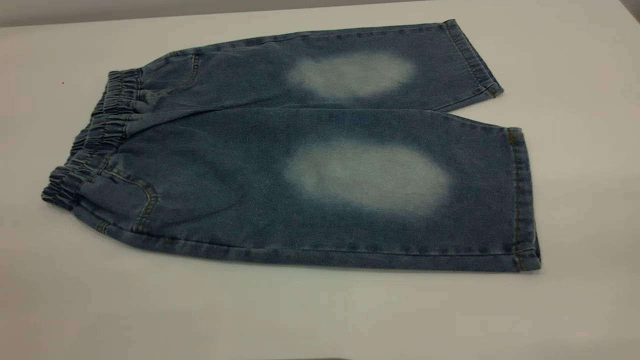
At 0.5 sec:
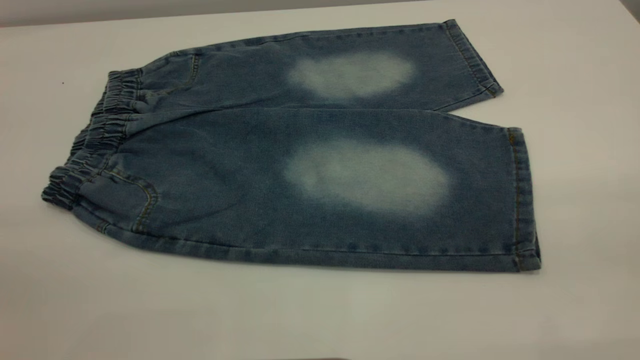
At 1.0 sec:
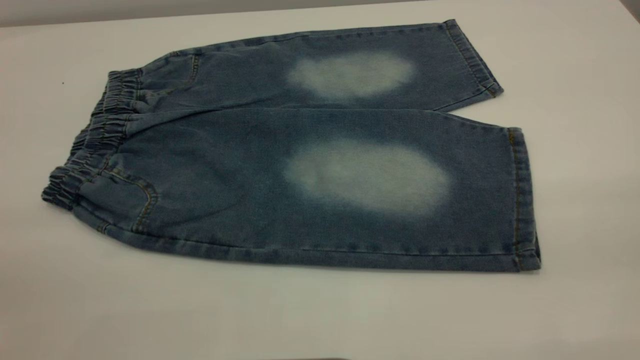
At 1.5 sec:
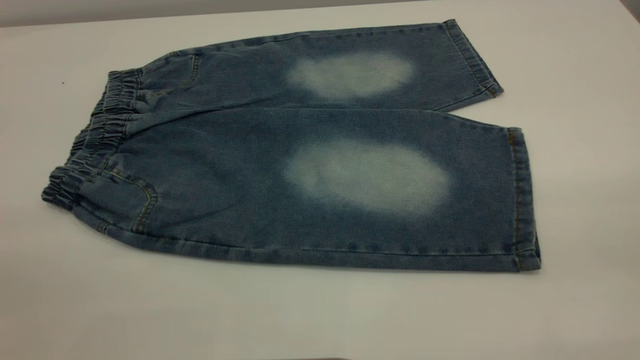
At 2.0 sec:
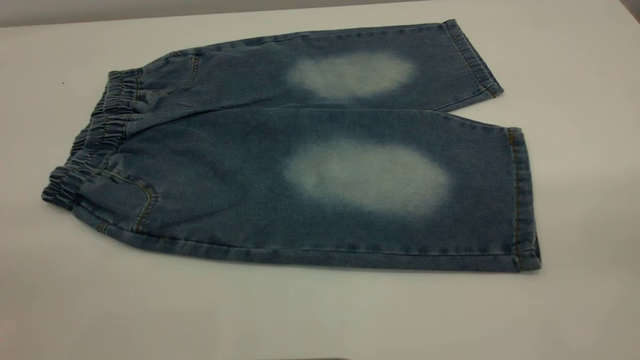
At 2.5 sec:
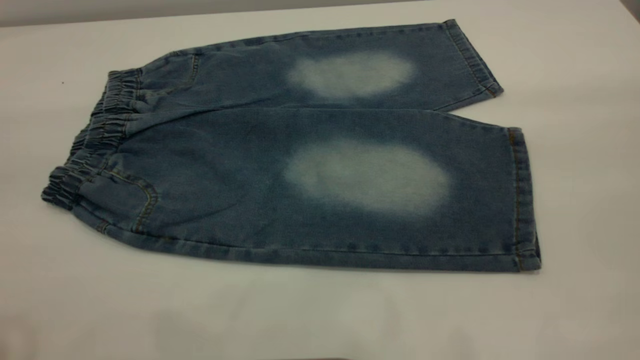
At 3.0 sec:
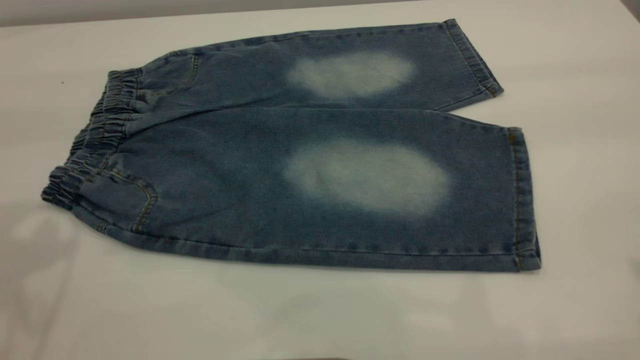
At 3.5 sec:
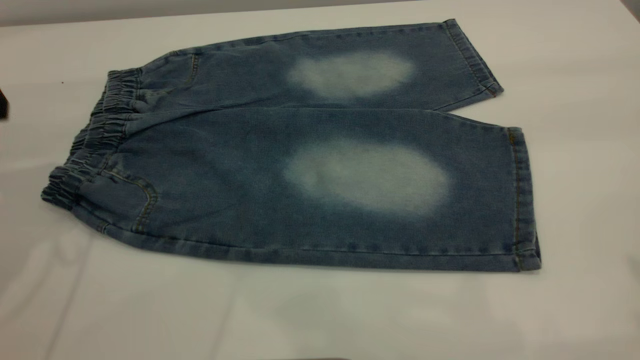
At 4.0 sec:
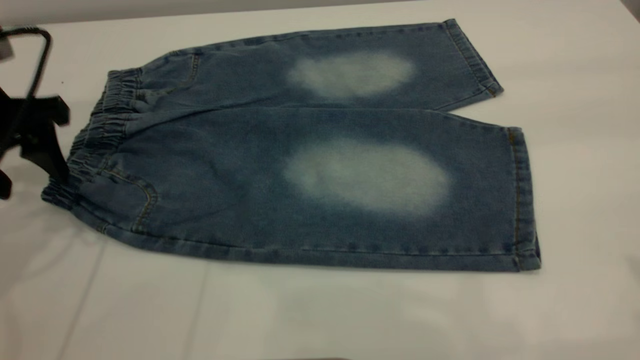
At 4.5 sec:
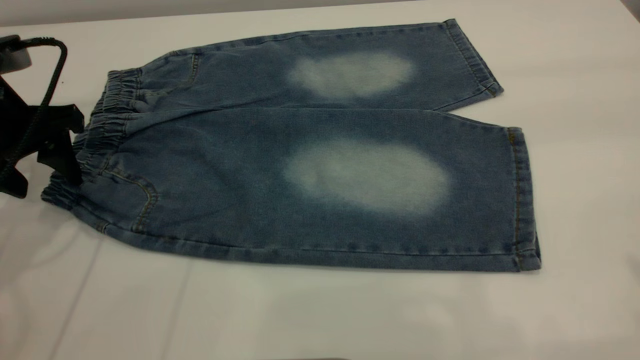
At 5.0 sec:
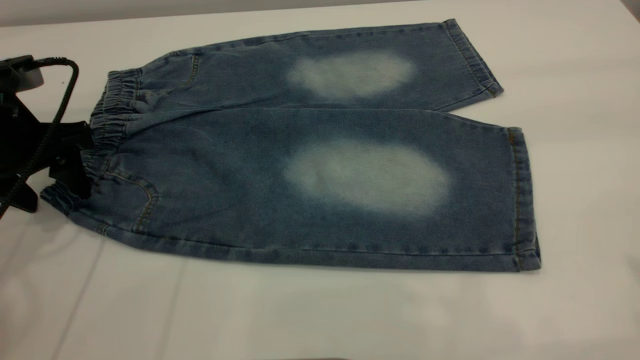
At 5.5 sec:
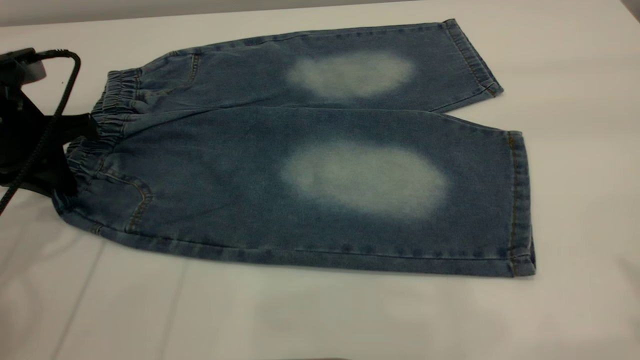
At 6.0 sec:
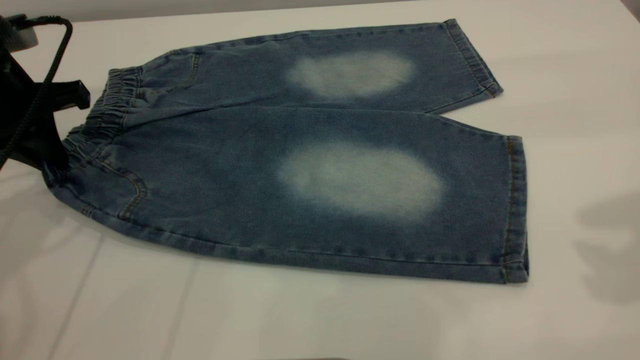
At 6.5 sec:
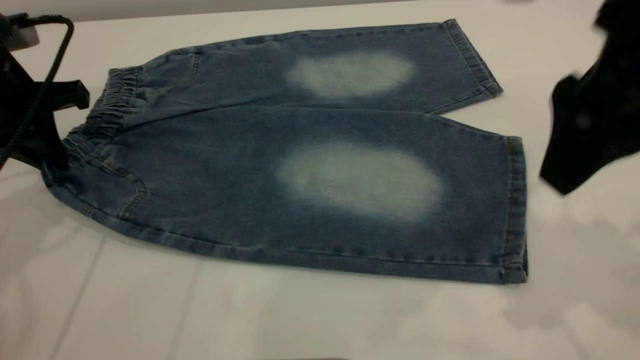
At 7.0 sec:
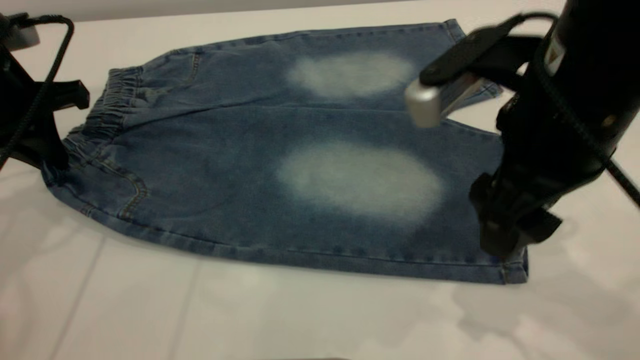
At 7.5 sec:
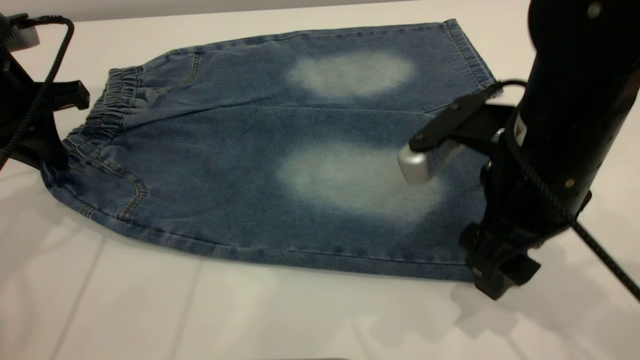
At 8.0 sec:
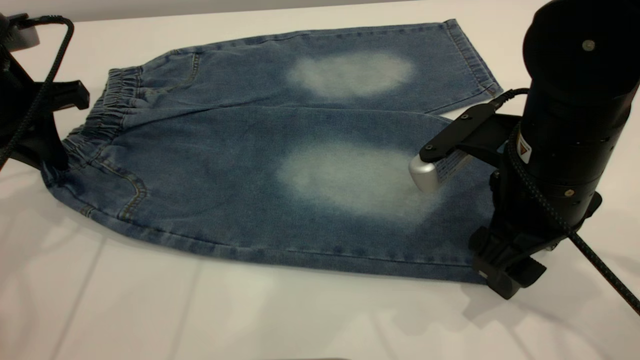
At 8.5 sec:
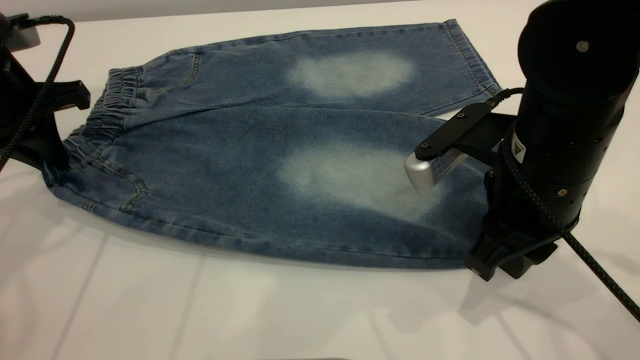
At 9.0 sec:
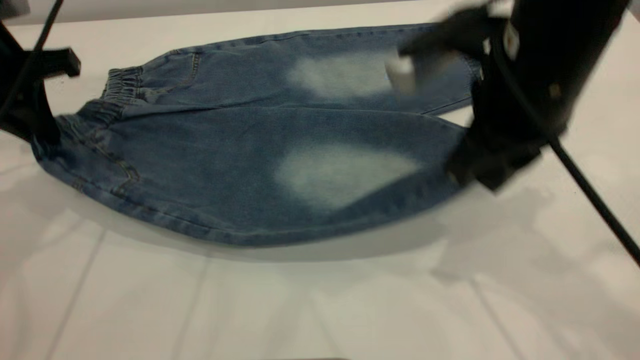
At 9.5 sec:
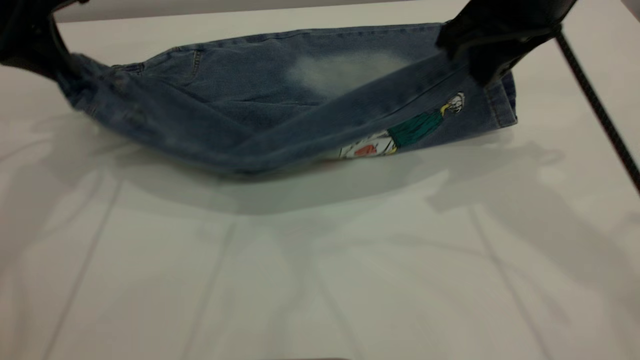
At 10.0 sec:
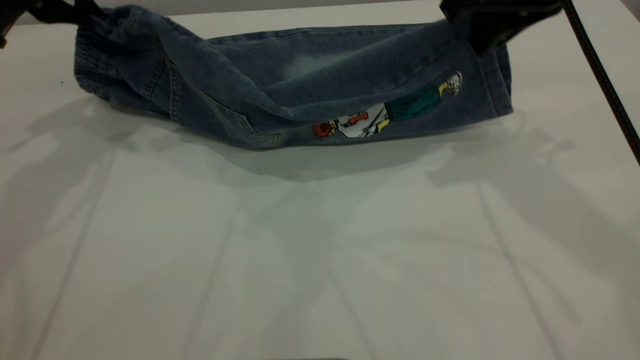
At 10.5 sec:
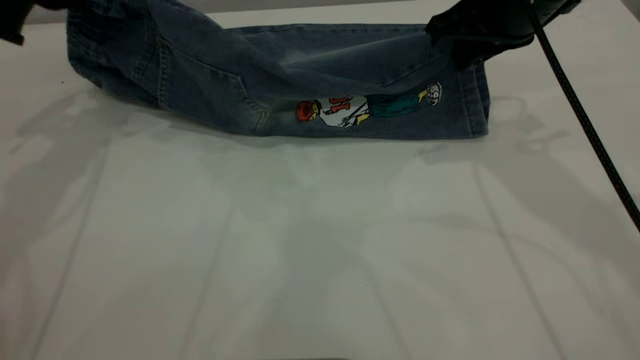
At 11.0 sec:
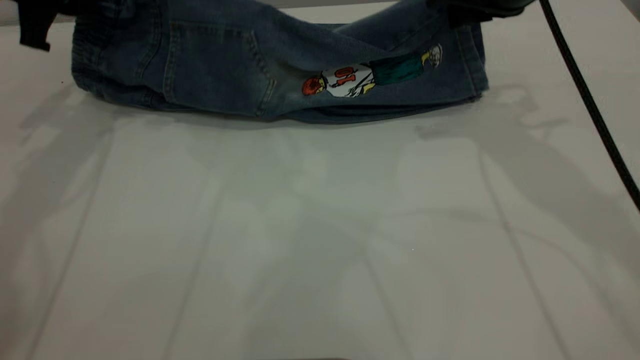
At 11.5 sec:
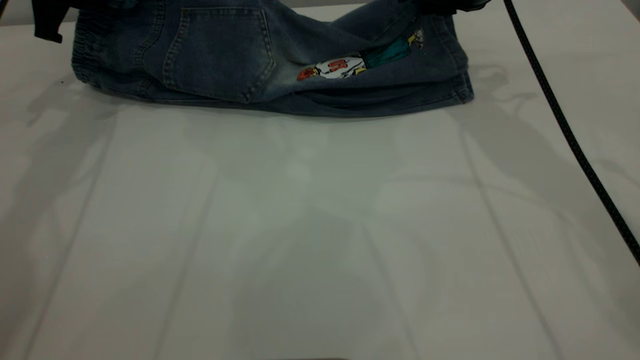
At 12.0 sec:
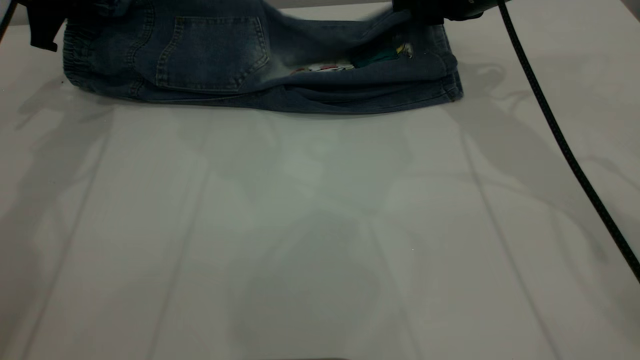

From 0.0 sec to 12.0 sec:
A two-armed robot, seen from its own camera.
From 2.0 sec to 4.0 sec: The left gripper goes some 35 cm forward and downward.
From 4.0 sec to 6.0 sec: The right gripper travels forward and downward by roughly 10 cm. Meanwhile the left gripper closes its fingers.
From 6.0 sec to 8.0 sec: The right gripper is displaced downward and to the left by roughly 25 cm.
From 8.0 sec to 10.0 sec: The right gripper is displaced upward and forward by approximately 15 cm, and closes its fingers. Meanwhile the left gripper travels upward and forward by approximately 10 cm.
From 10.0 sec to 12.0 sec: The grippers both shift forward and downward by roughly 10 cm. The right gripper opens.

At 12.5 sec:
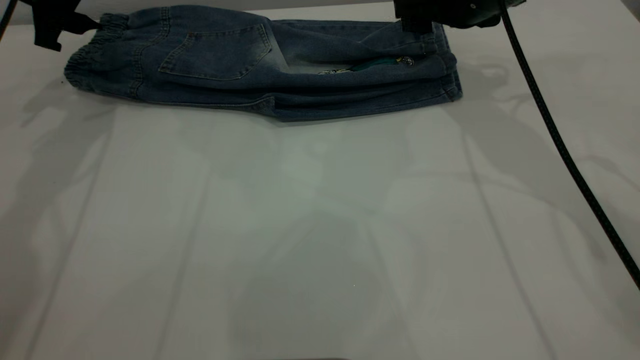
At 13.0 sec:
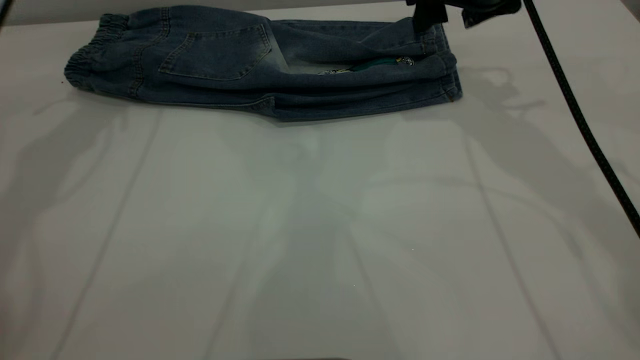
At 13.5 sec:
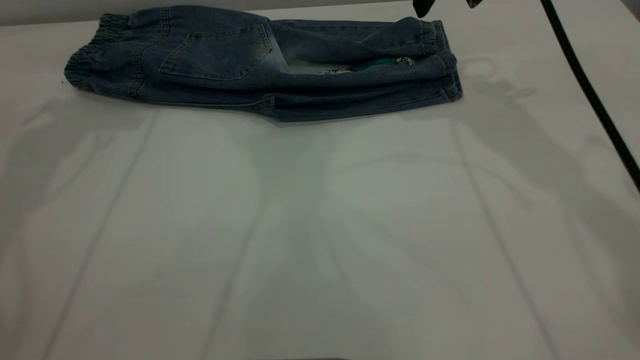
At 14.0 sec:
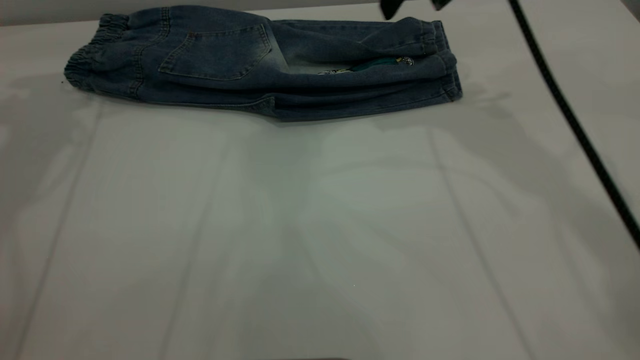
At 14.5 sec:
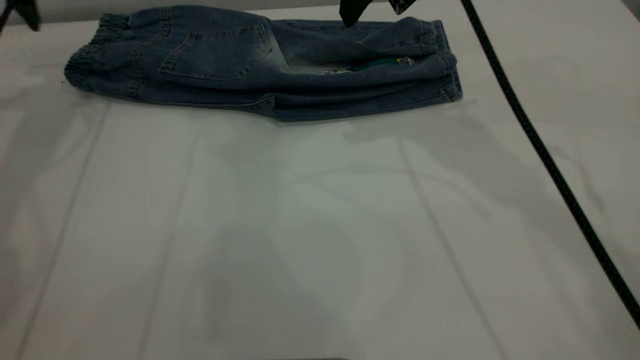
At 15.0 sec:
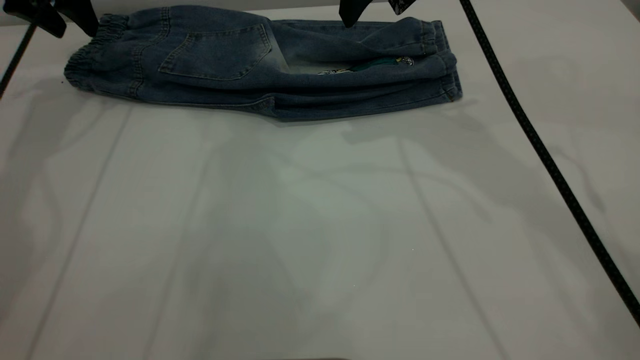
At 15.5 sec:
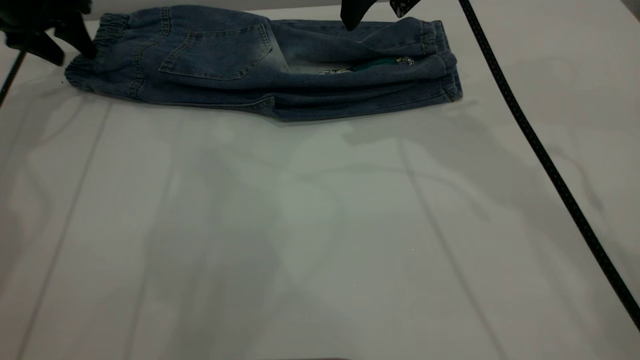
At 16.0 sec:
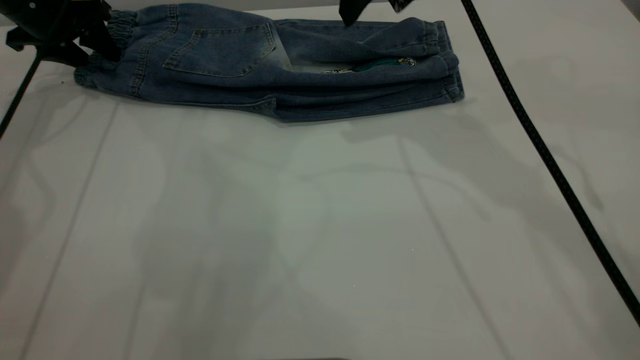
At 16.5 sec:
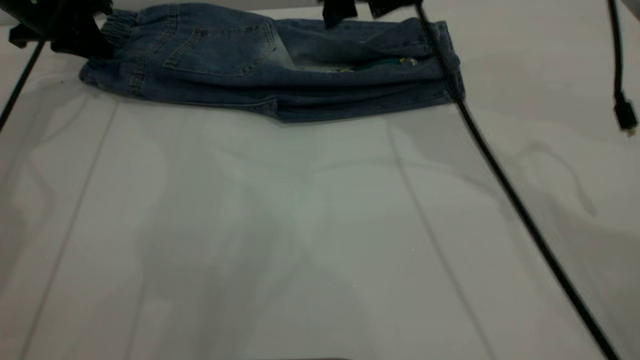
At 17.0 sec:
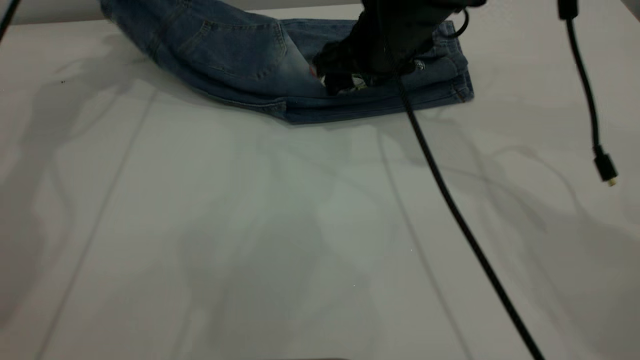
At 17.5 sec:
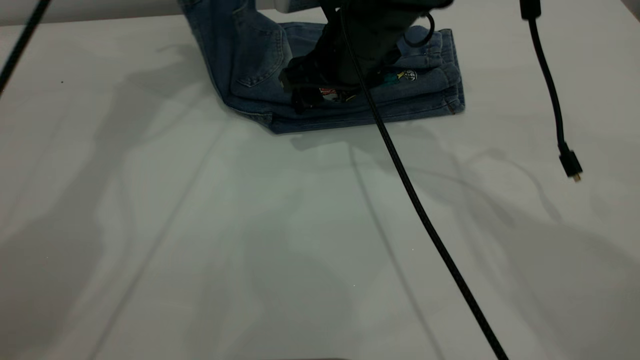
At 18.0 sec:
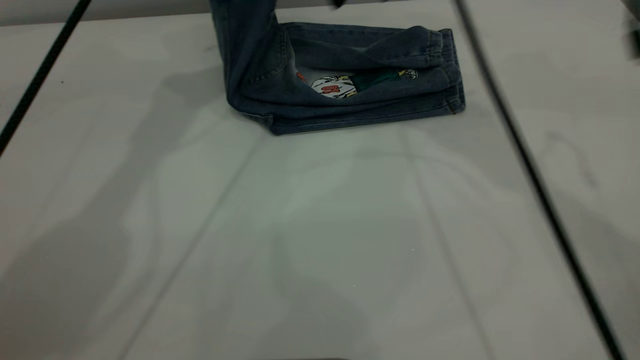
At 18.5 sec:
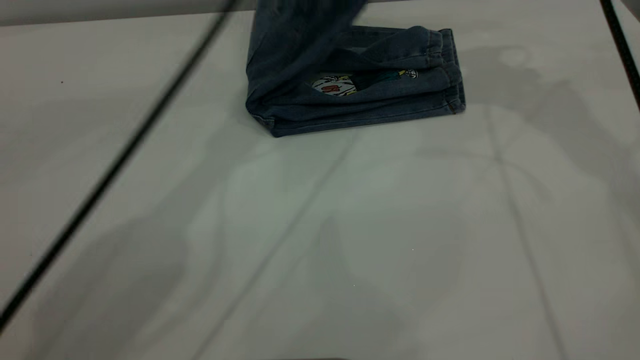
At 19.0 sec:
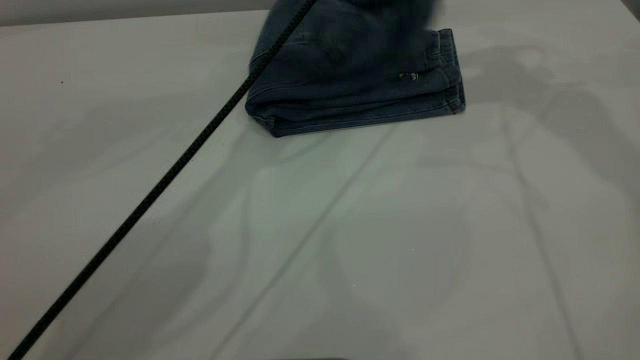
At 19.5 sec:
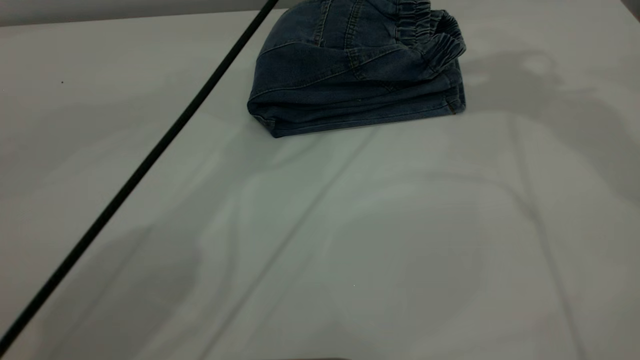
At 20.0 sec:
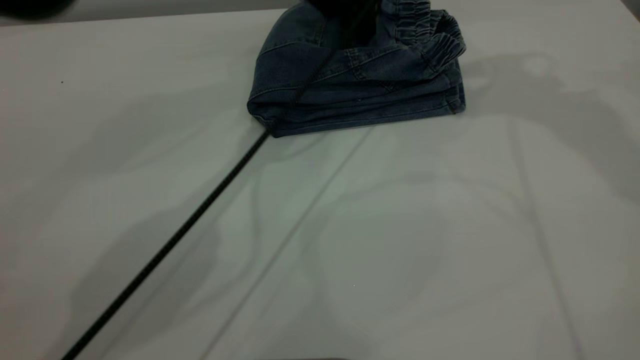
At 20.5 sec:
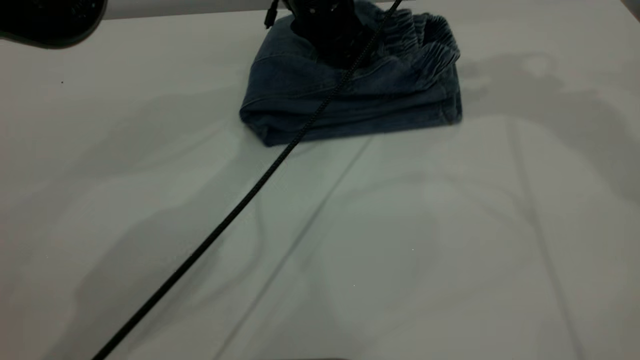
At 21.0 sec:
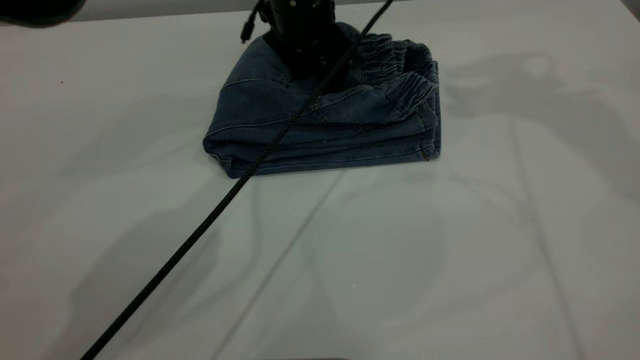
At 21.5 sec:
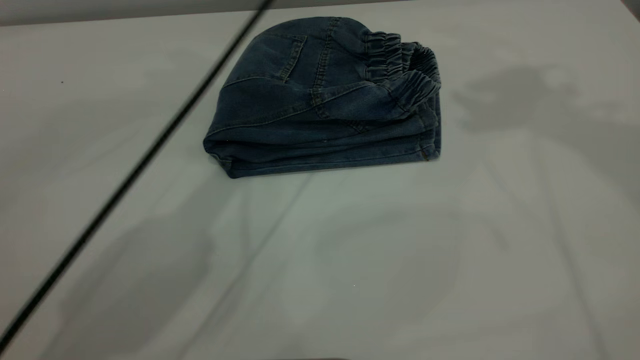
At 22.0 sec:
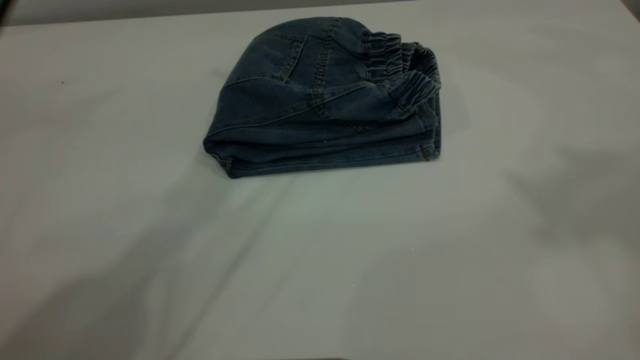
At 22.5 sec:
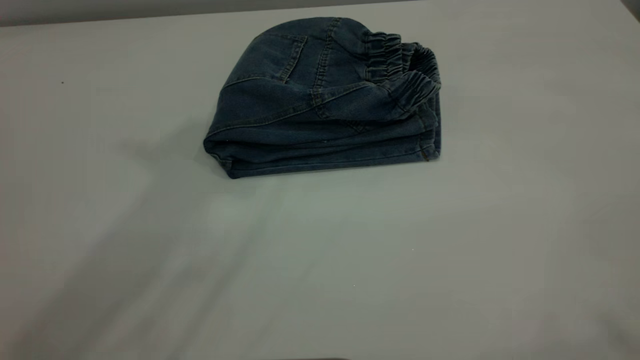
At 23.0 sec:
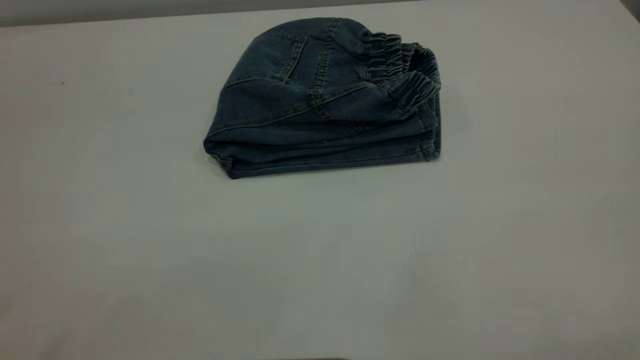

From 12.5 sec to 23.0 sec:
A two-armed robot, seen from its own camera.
Step, from 13.0 sec to 19.0 sec: Fold the pants from left to right.
From 12.5 sec to 14.5 sec: The right gripper shifts roughly 10 cm upward and to the left.
From 14.5 sec to 16.5 sec: The grippers both shift downward by roughly 5 cm. The left gripper closes.
From 16.5 sec to 19.0 sec: The left gripper goes some 35 cm to the right, and opens its fingers; the right gripper is displaced upward and to the right by roughly 20 cm.
From 19.0 sec to 21.0 sec: The left gripper is displaced downward by roughly 10 cm, and opens.
From 21.0 sec to 23.0 sec: The right gripper is displaced backward by approximately 40 cm. The left gripper shifts about 60 cm backward, upward and to the left.
